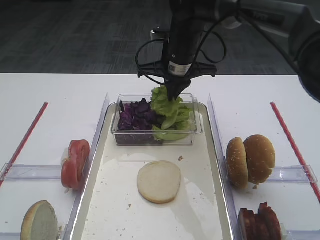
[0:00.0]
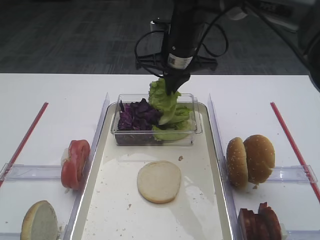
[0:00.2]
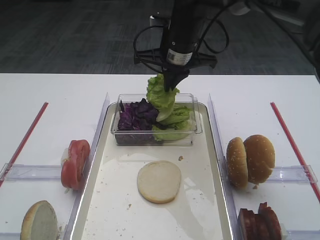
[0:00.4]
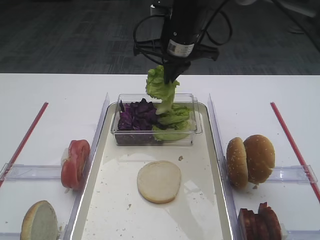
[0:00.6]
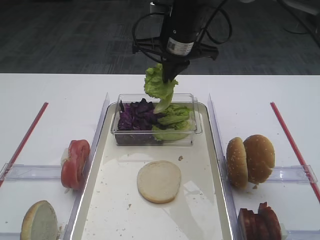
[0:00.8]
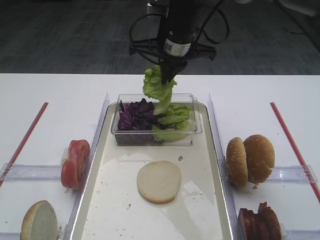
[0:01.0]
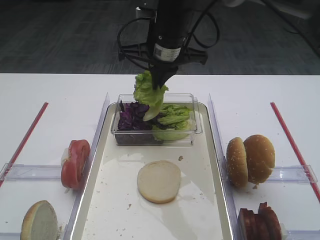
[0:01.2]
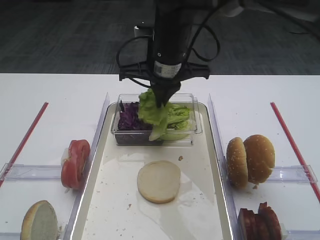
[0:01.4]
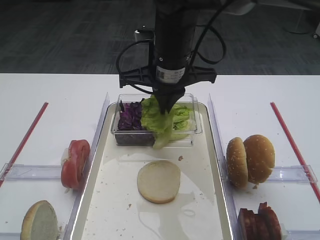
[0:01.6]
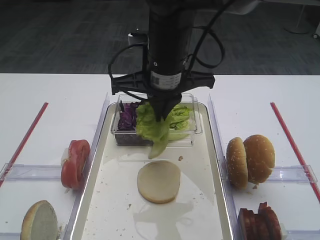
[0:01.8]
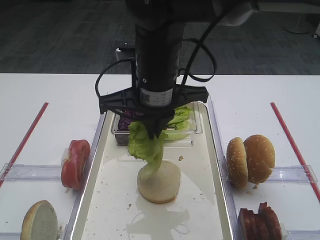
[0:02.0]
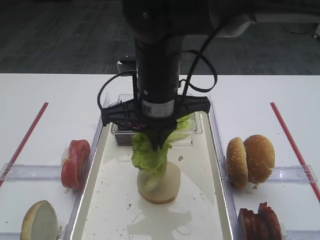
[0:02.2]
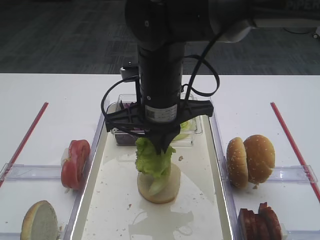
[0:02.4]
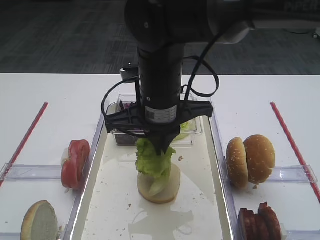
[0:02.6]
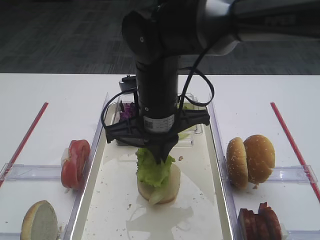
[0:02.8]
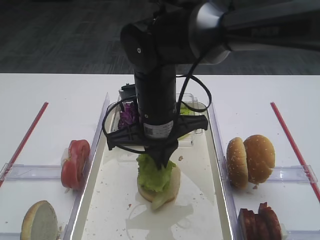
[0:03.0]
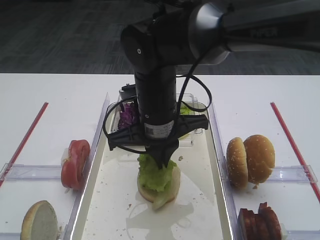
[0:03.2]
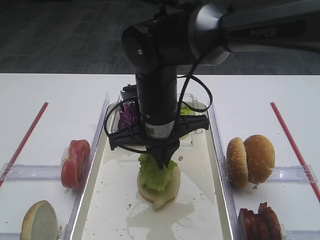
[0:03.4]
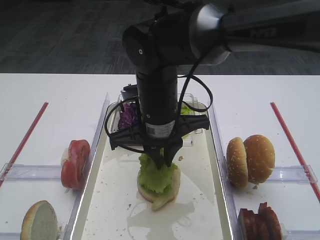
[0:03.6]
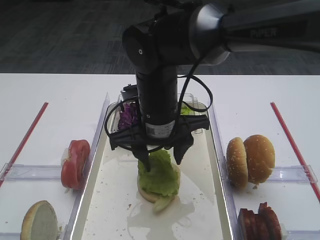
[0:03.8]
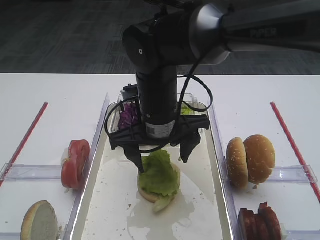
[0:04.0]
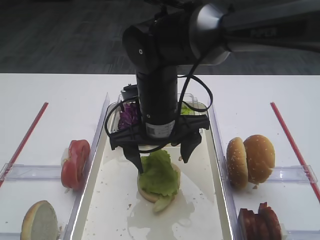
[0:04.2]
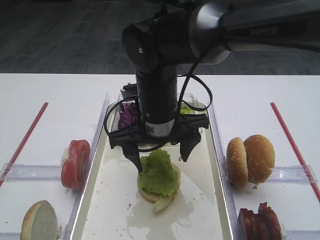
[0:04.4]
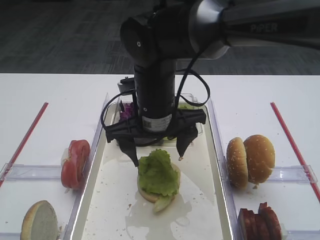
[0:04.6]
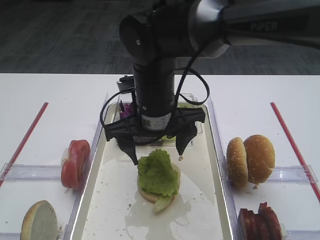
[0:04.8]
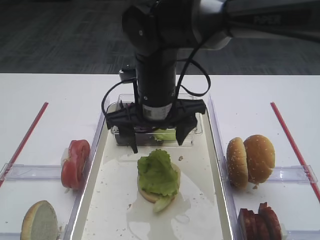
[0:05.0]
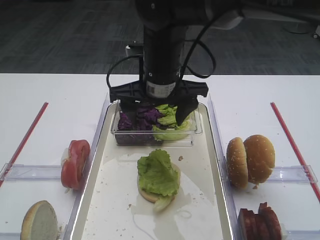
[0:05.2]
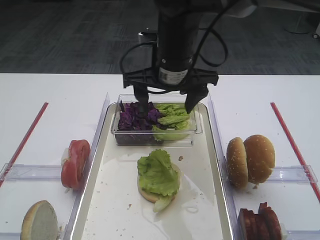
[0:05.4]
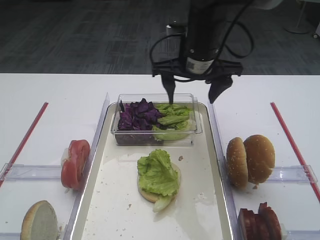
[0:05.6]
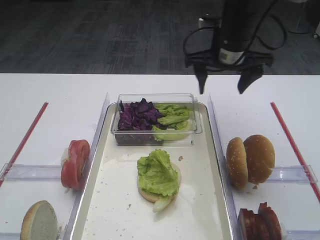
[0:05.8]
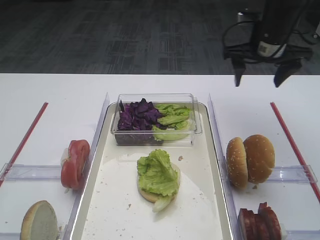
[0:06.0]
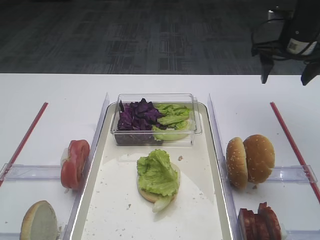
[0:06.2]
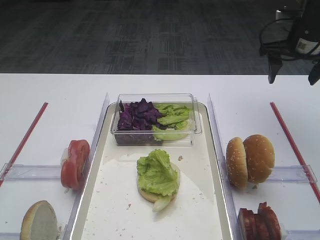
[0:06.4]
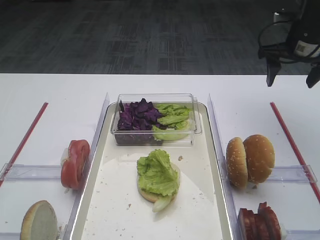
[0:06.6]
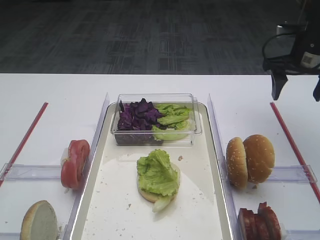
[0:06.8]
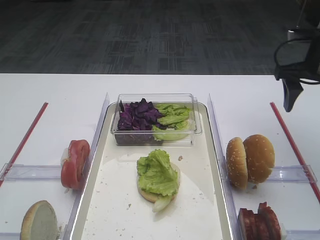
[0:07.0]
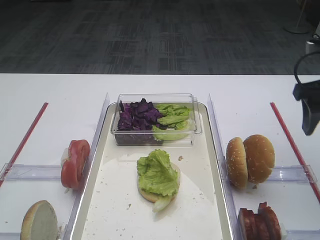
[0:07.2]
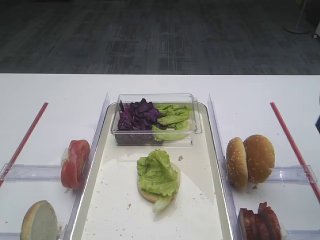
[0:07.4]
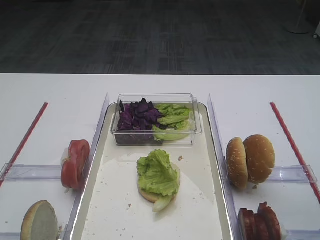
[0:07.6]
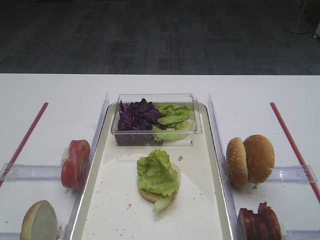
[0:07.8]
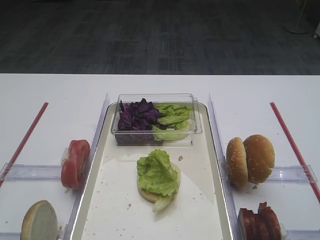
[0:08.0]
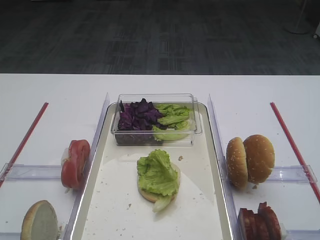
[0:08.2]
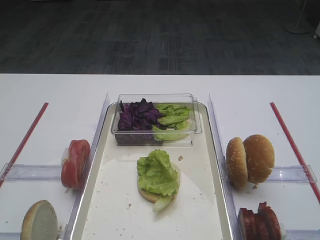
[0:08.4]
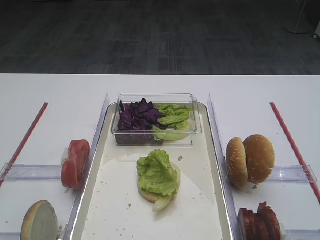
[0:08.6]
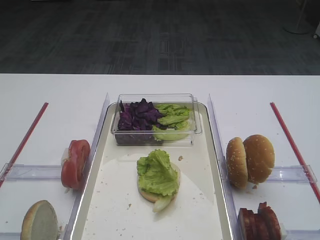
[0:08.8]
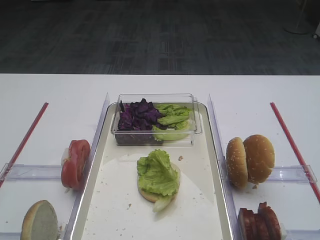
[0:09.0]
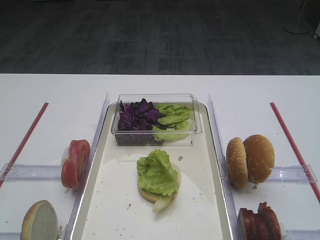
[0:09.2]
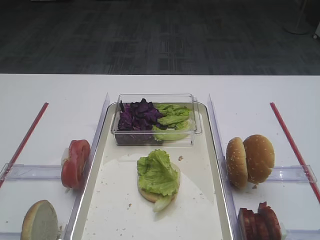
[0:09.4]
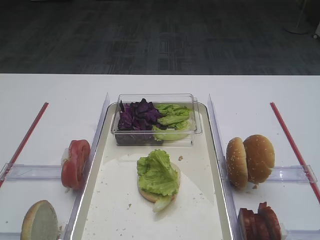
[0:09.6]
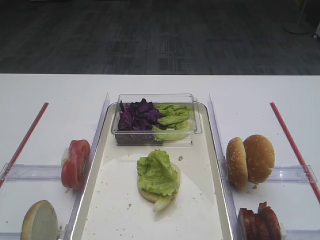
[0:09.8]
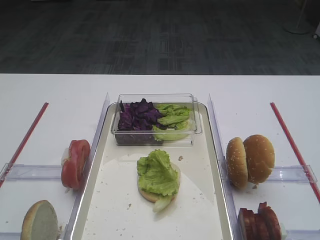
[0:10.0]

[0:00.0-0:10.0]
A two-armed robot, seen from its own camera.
Step, 0:00.4 to 0:07.0: Place the lettuce leaf on the bread slice with the right gripper.
0:00.0 to 0:01.4: The right gripper goes about 5 cm backward.
0:01.4 to 0:02.8: The right gripper is displaced backward by about 10 cm.
0:02.8 to 0:04.2: The right gripper opens its fingers.
0:04.2 to 0:05.8: The right gripper moves to the right, forward and upward, about 20 cm.
0:05.8 to 0:07.2: The right gripper moves to the right and backward, some 20 cm.
0:07.2 to 0:08.6: The right gripper shifts some 25 cm backward.

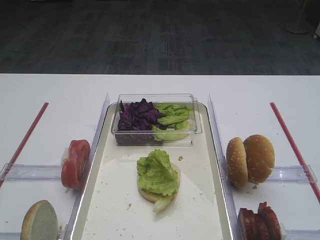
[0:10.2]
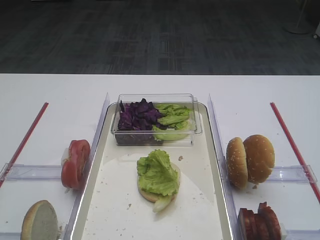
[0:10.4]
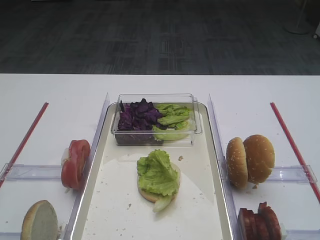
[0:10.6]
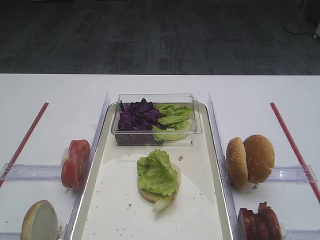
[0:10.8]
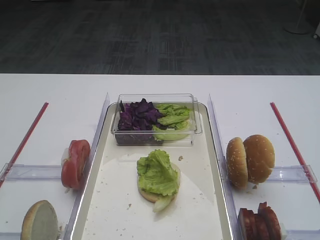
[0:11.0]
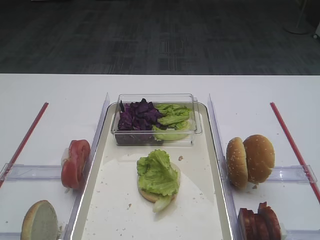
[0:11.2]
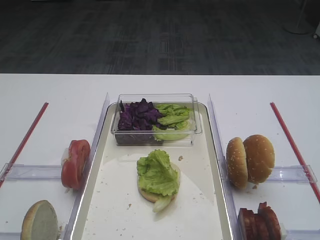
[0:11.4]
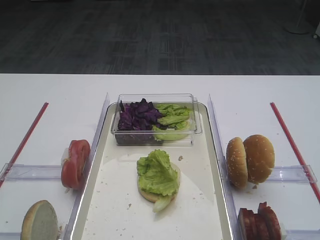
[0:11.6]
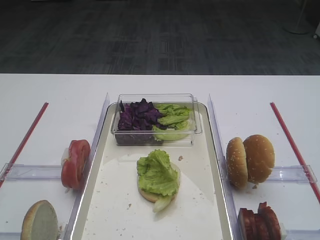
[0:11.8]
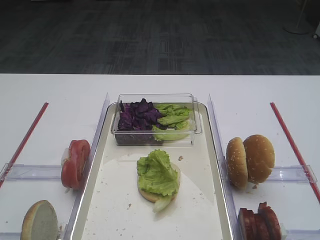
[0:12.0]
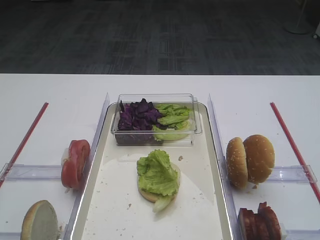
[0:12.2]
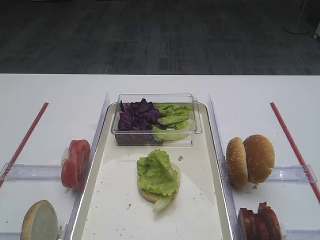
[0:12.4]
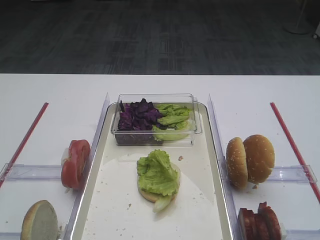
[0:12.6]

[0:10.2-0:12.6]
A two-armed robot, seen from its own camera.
0:10.2 to 0:12.6: Neither gripper changes place.

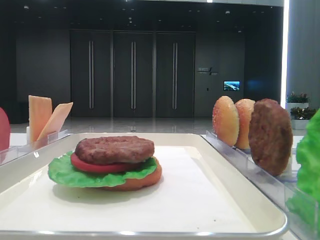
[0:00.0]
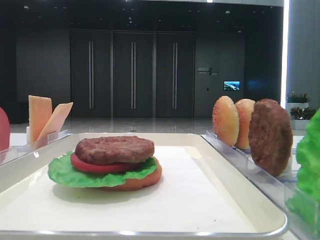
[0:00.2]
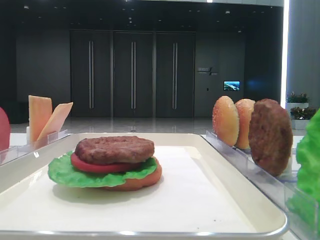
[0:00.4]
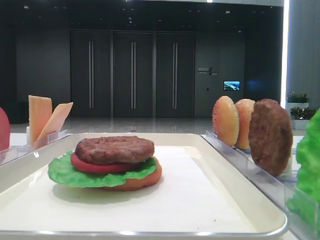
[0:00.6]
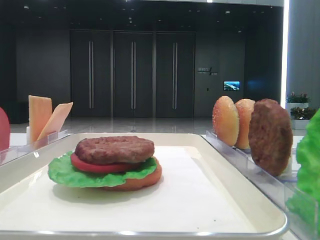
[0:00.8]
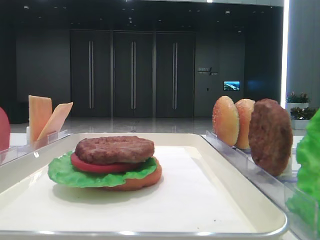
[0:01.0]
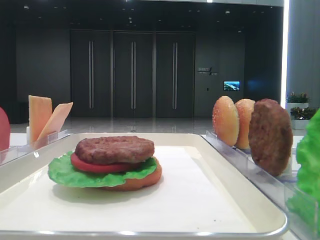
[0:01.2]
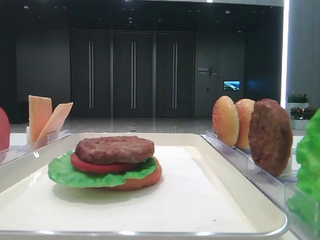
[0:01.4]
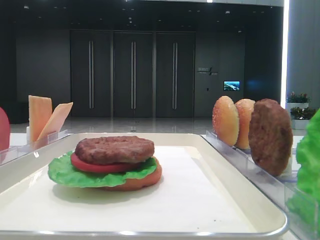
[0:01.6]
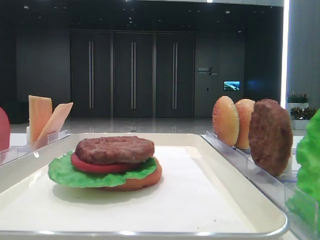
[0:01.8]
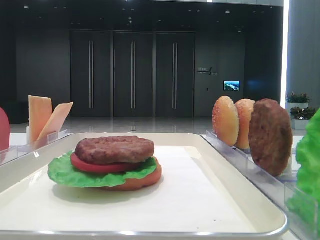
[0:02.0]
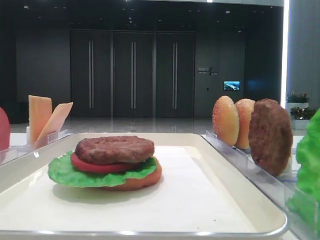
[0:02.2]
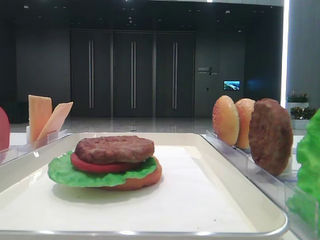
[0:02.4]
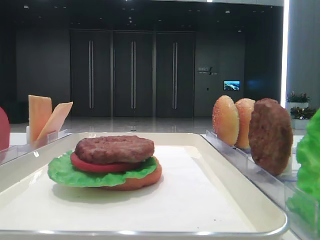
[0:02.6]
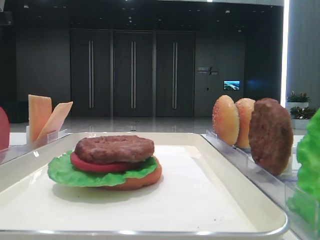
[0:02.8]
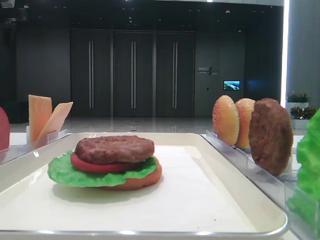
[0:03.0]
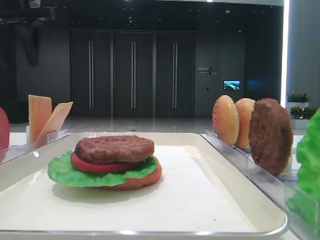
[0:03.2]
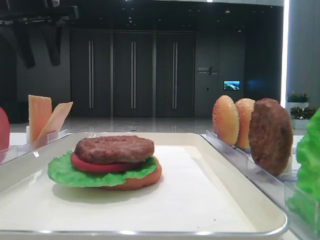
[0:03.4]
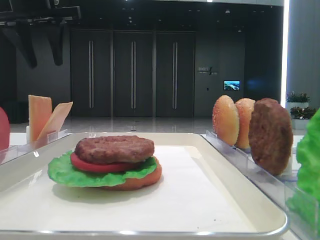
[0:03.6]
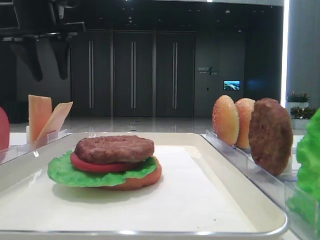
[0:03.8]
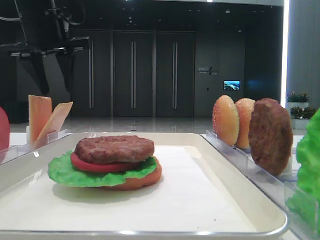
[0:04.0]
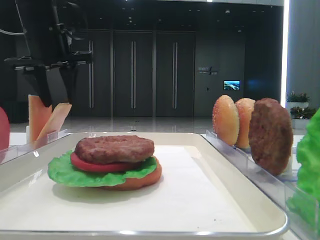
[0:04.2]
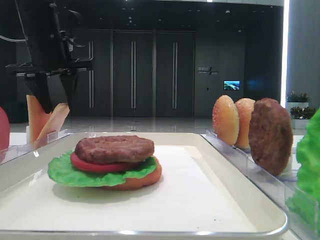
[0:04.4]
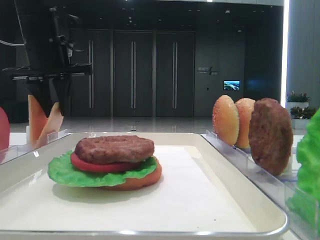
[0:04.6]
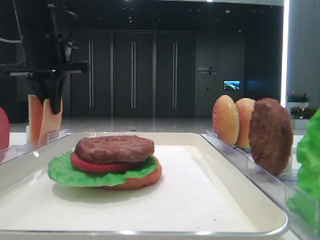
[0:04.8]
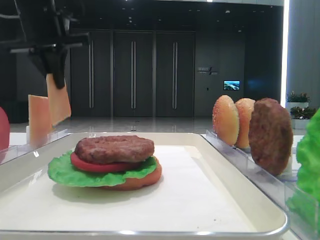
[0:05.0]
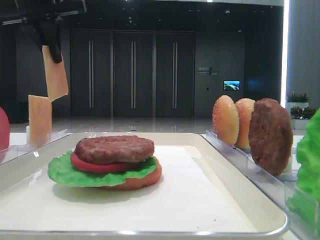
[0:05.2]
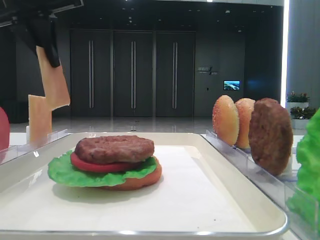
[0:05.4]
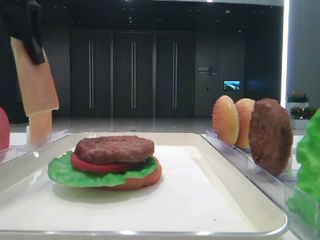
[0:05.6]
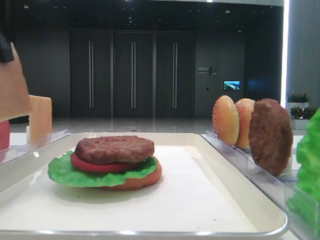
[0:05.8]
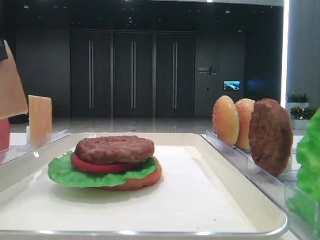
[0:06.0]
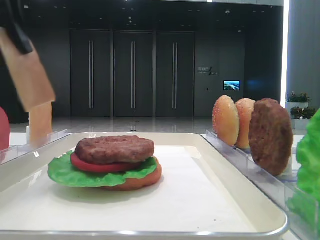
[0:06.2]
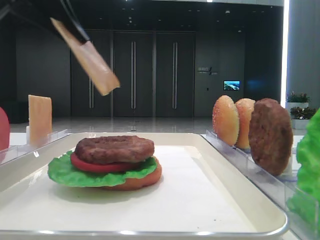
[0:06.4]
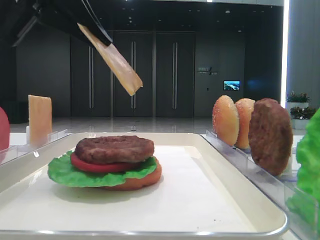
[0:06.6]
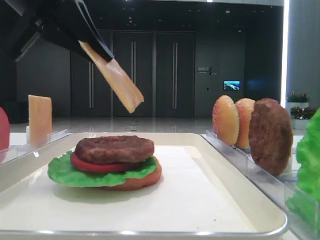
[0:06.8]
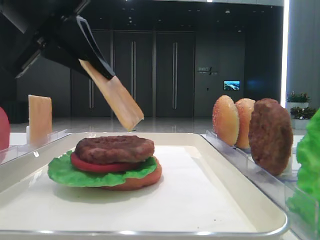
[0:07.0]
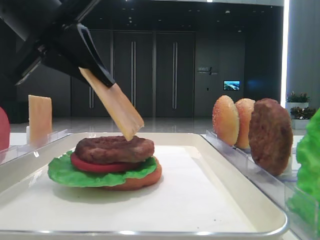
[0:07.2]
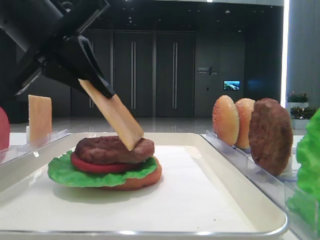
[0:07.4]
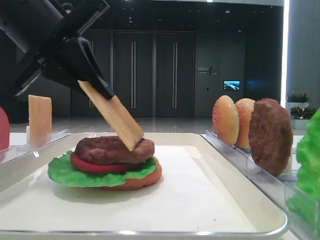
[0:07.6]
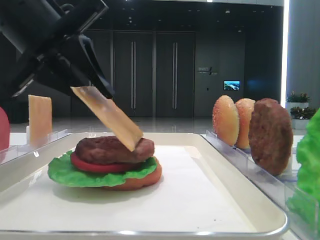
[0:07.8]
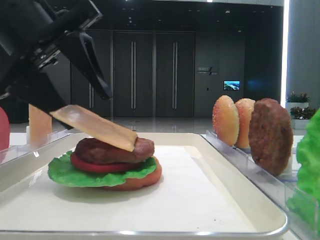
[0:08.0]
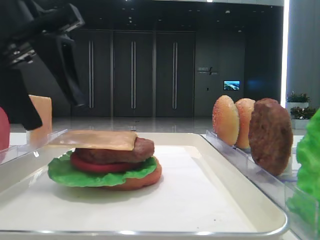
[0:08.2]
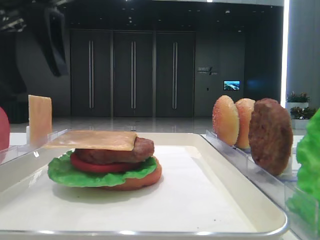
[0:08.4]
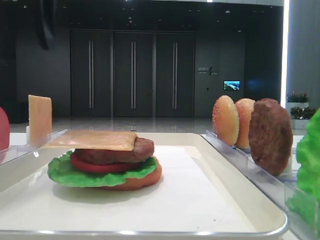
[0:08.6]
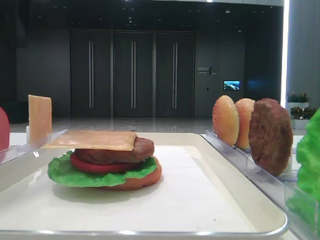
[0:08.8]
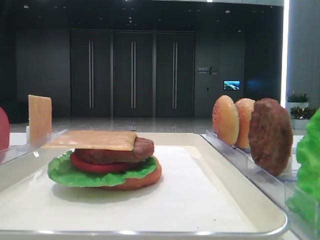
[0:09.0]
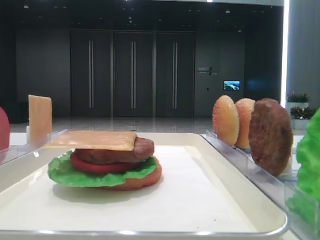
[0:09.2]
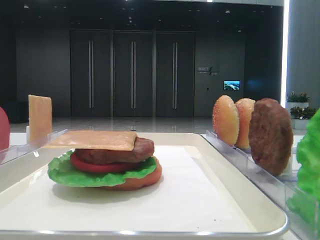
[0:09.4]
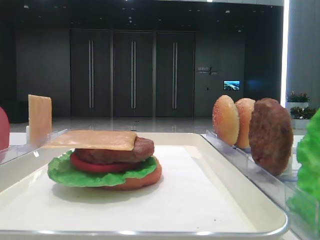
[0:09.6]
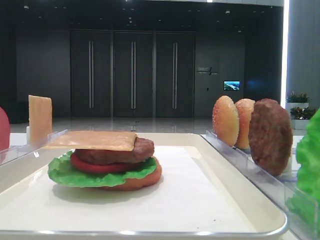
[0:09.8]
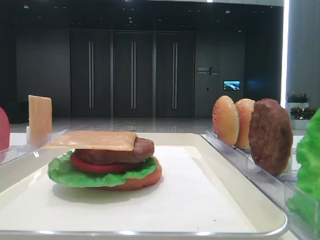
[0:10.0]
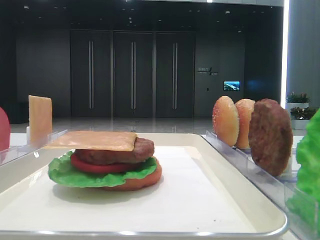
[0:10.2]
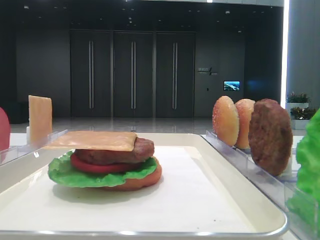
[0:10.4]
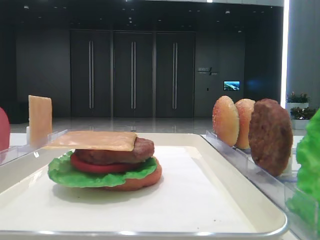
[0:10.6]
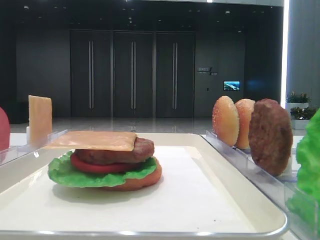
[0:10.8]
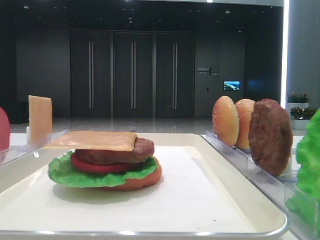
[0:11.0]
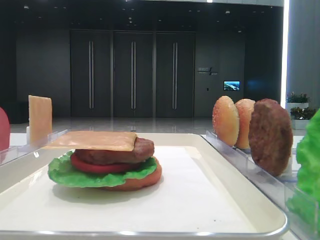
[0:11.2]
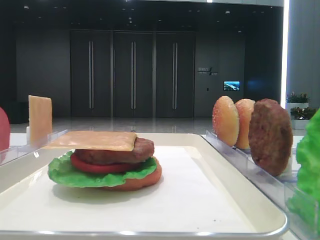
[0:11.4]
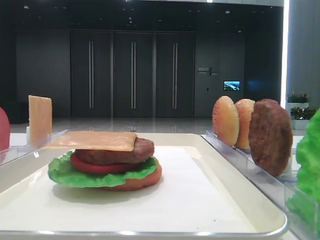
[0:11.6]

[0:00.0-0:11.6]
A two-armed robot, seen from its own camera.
Step, 0:00.0 to 0:04.6: Pick up the cheese slice with the left hand.
Step, 0:04.8 to 0:08.0: Place the cheese slice on the patty with the left hand.
0:01.4 to 0:02.8: The left gripper travels forward by roughly 40 cm.
0:02.8 to 0:04.4: The left gripper moves to the right, downward and forward, approximately 15 cm.
0:04.4 to 0:05.8: The left gripper is displaced backward by about 20 cm, and closes.
0:05.8 to 0:07.2: The left gripper travels downward and to the right by some 10 cm.
0:07.2 to 0:08.8: The left gripper heads upward and to the left, covering roughly 10 cm, and opens its fingers.
0:08.8 to 0:10.2: The left gripper goes approximately 30 cm backward and to the left.
